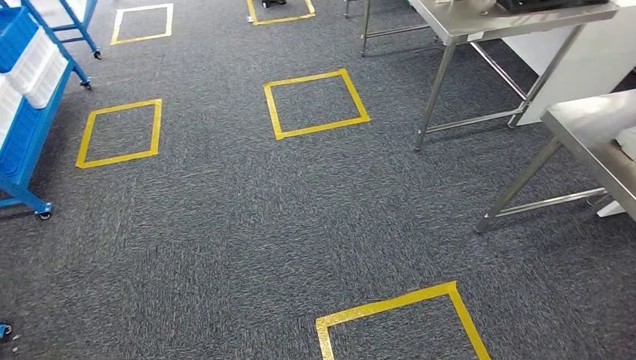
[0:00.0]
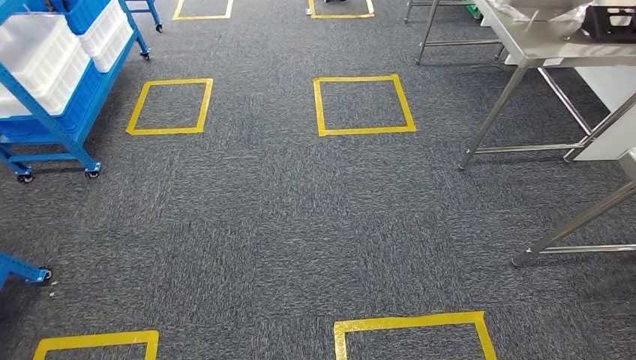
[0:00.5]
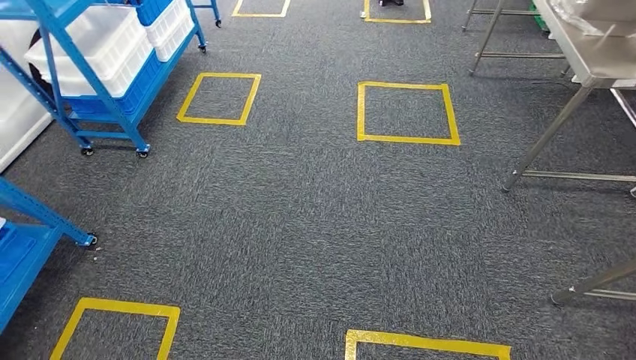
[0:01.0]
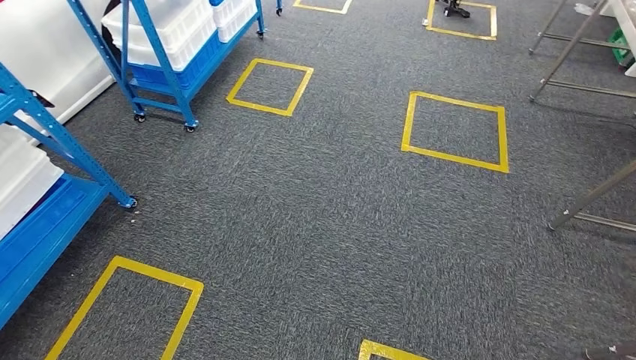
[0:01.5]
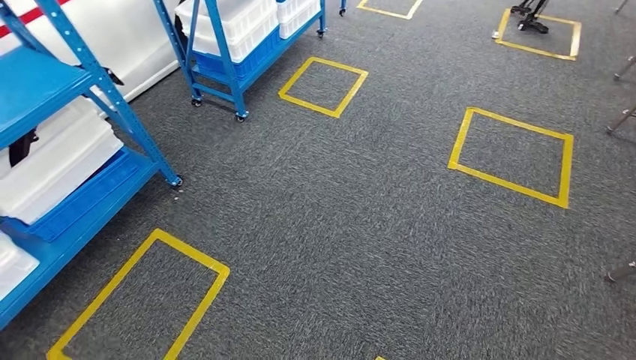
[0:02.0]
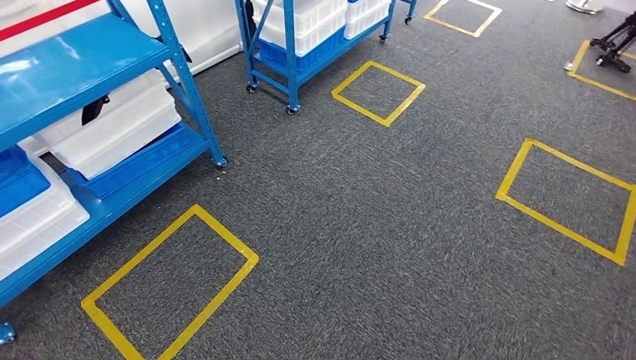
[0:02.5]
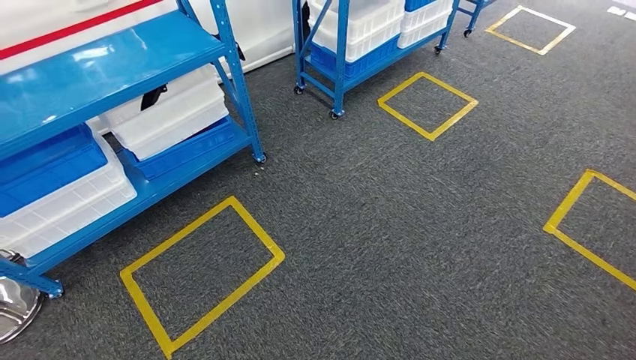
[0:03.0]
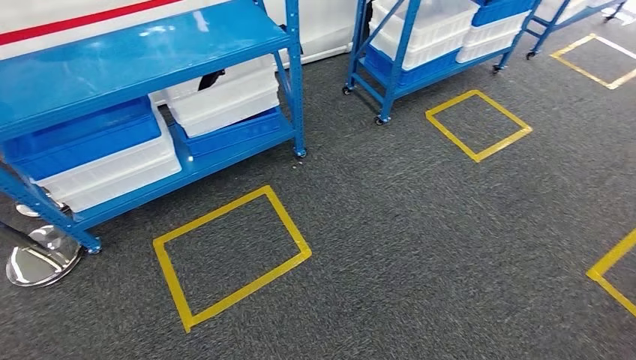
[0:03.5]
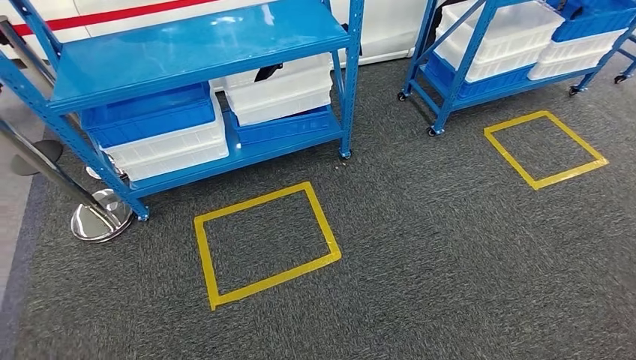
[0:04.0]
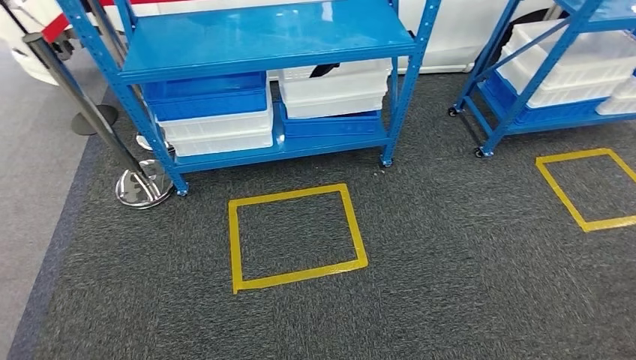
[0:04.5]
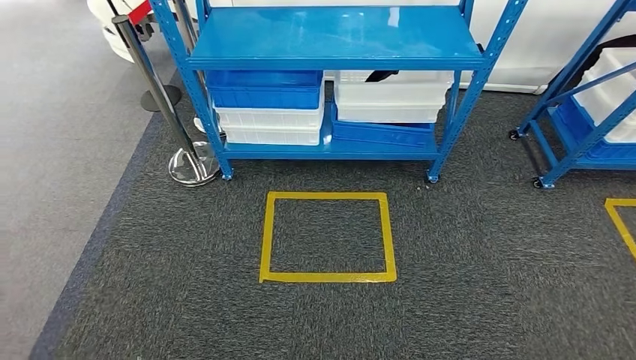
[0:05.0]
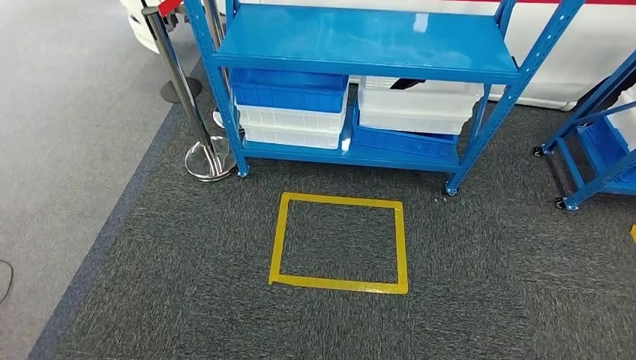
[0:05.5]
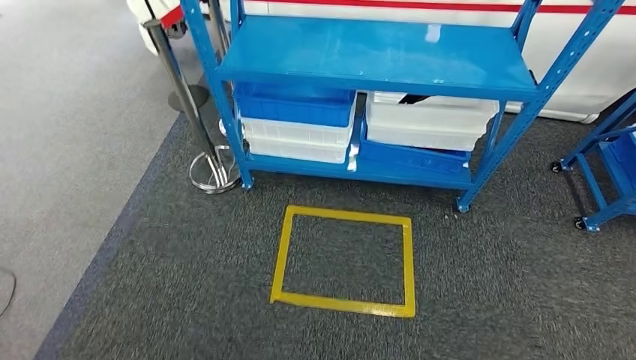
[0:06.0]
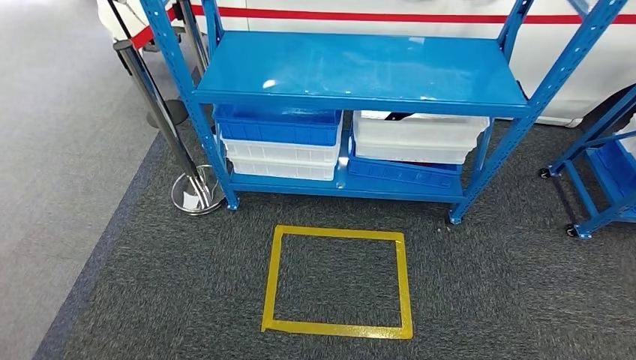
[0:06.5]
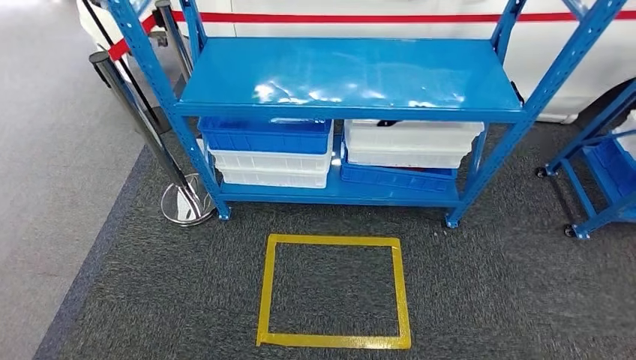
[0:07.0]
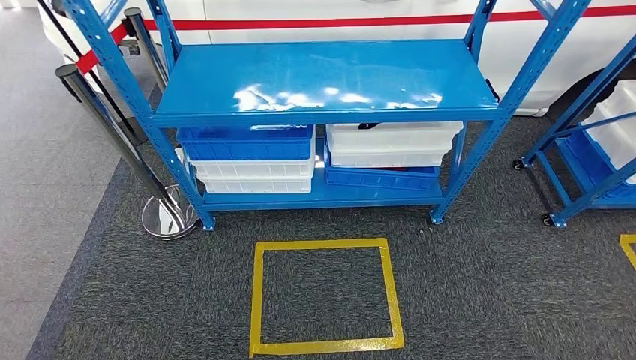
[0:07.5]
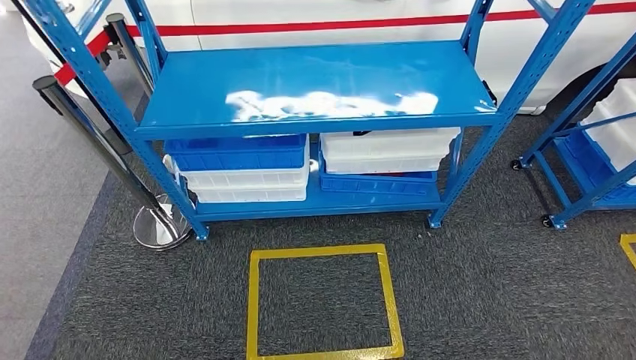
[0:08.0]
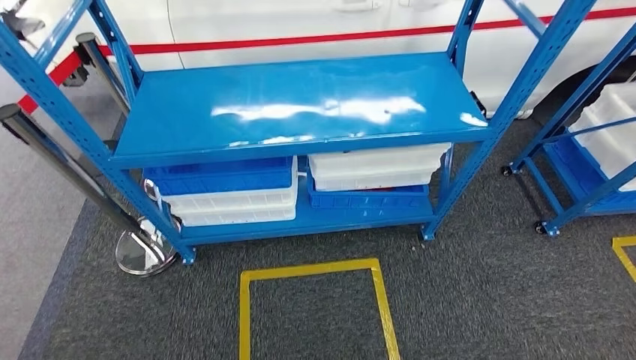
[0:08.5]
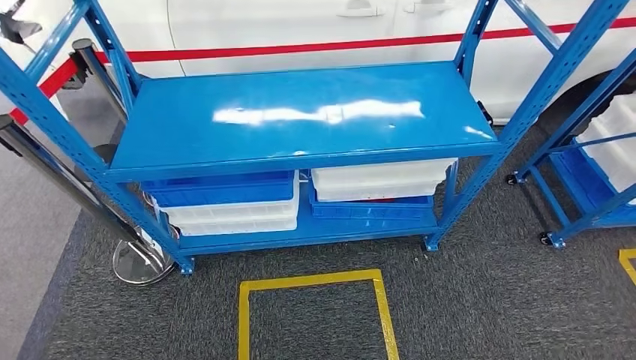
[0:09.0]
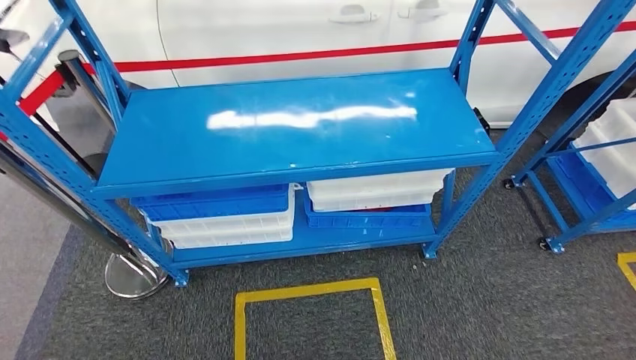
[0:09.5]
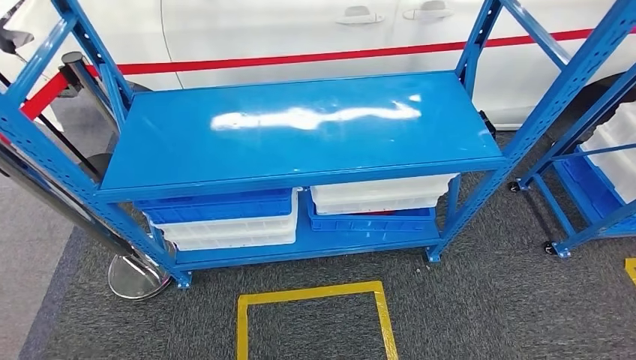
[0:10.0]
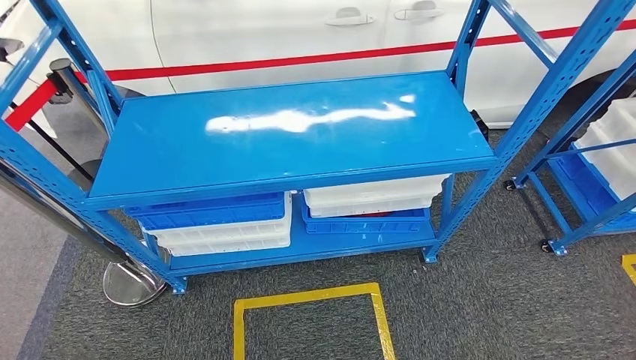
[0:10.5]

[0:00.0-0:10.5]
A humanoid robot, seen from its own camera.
Step, 0:00.0 to 0:10.5: Return to the initial position at the shelf.
